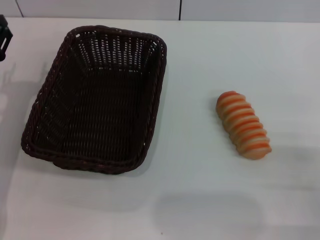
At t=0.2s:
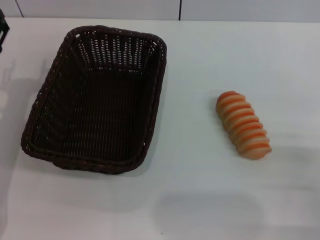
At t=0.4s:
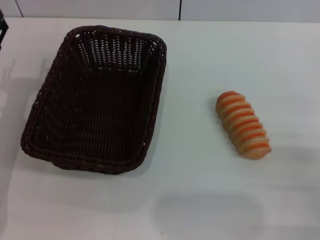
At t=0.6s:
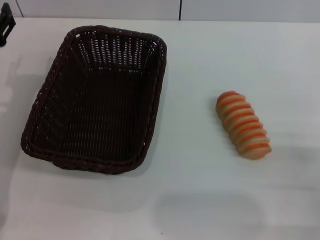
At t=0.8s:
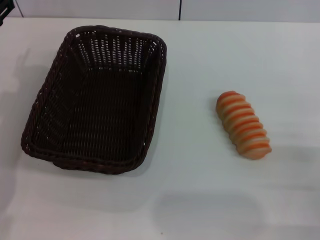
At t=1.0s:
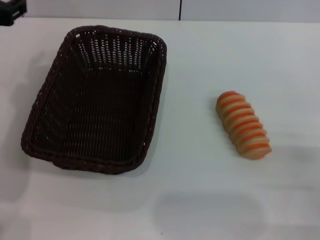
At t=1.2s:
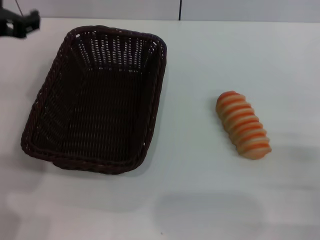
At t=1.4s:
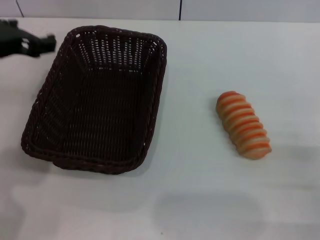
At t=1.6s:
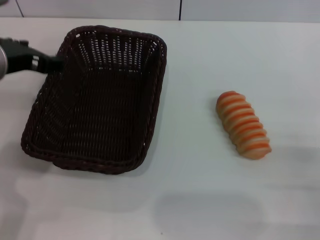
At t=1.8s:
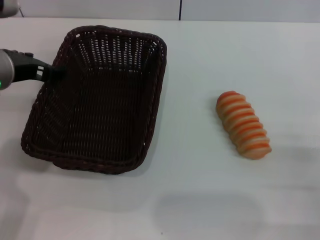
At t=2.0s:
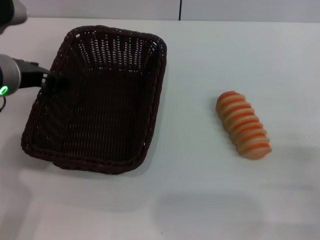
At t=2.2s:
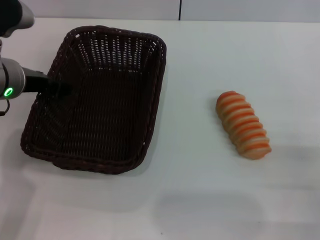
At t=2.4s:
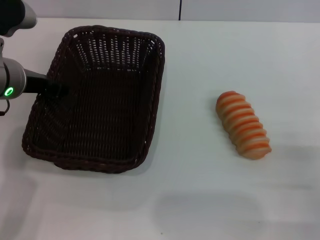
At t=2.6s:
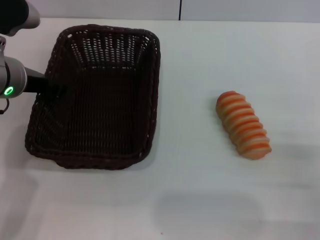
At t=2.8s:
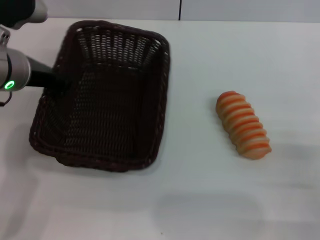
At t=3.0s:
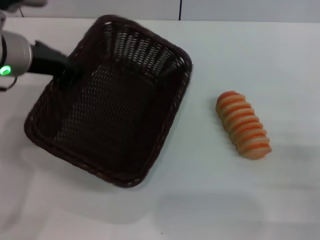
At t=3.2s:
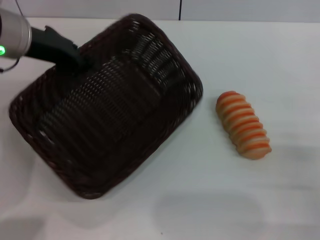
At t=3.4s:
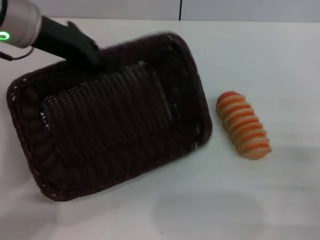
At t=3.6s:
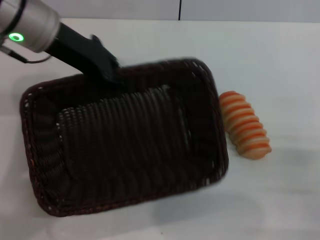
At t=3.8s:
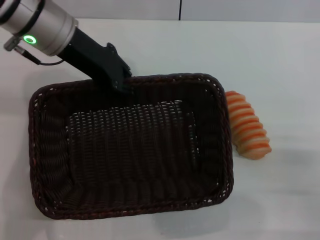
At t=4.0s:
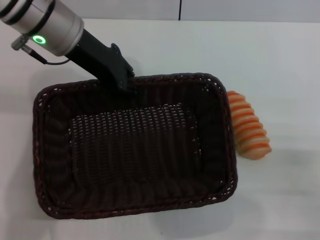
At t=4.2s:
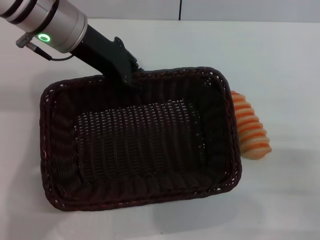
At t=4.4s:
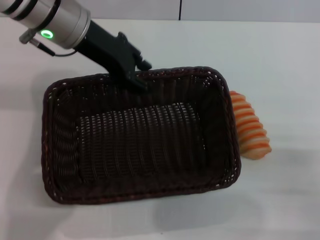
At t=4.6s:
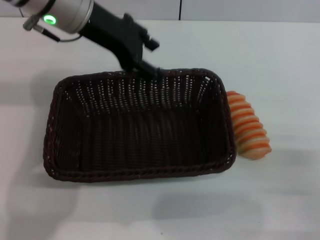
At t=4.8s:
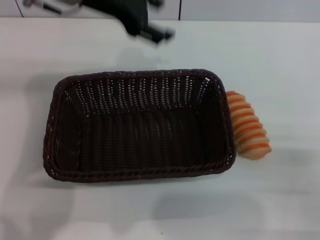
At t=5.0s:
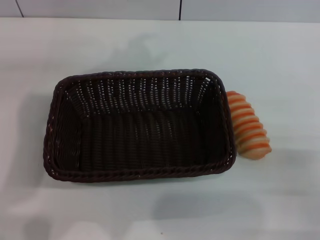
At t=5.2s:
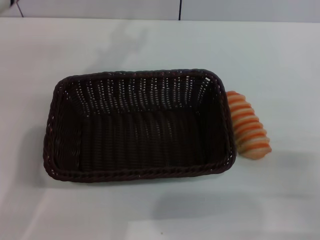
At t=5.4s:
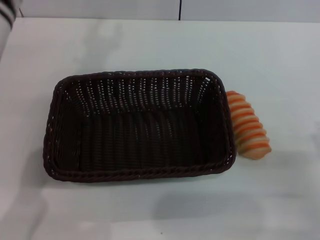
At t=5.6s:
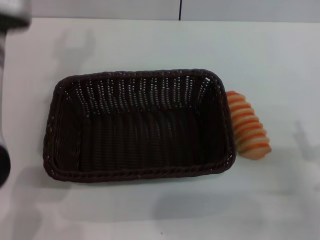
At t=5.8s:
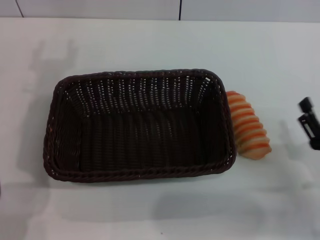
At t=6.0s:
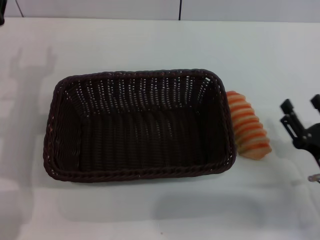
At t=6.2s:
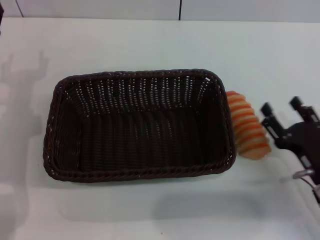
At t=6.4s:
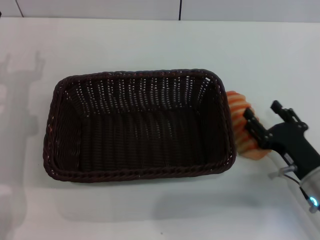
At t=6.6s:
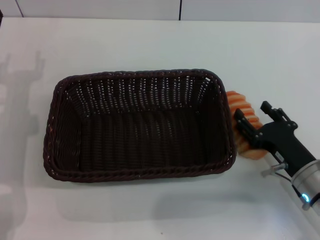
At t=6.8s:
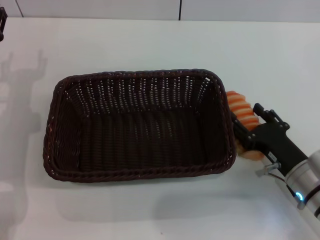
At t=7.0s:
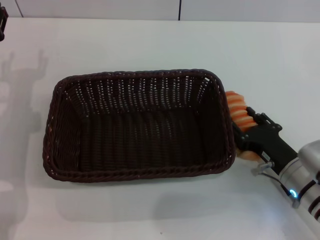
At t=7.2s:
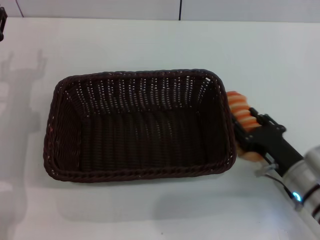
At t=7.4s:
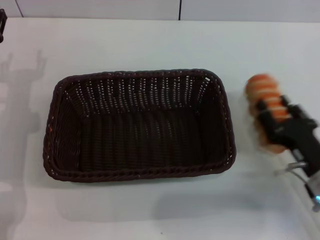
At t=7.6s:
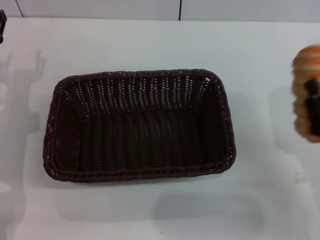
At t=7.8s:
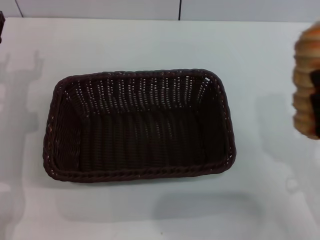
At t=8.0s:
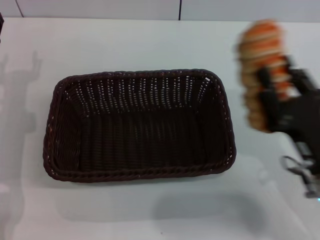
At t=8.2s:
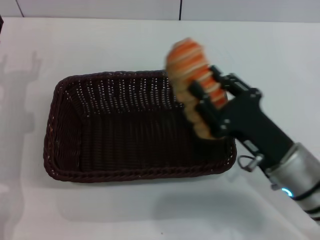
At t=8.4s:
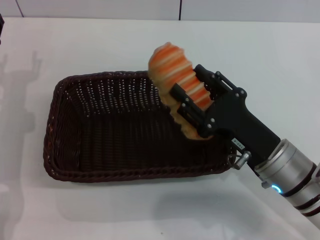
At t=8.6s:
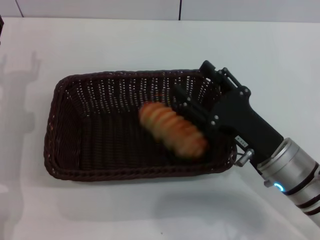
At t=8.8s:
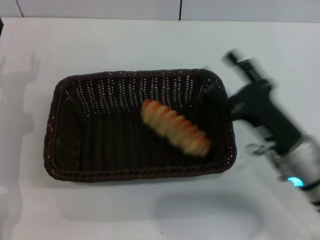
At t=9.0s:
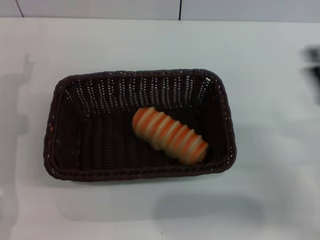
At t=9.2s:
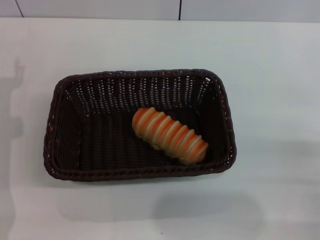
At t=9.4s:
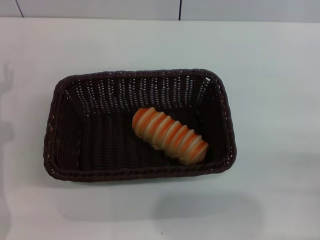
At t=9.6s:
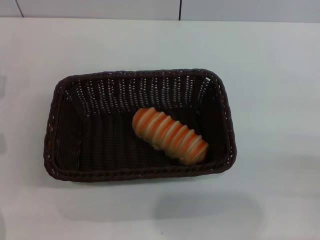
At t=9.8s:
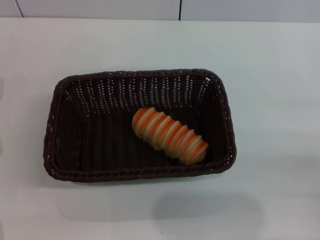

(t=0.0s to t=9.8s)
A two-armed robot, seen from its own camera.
Step, t=0.0s - t=3.0s: Pick up the dark basket with the left gripper.
Step, t=3.2s - t=4.4s: Place the dark basket in the center of view with the left gripper.
Step, t=4.6s - t=7.2s: Pick up the long bread with the right gripper.
Step, t=7.4s - t=8.4s: Place the long bread into the dark basket with the right gripper.
t=0.0s - t=1.4s: The left gripper travels upward and to the right by roughly 15 cm.
t=1.4s - t=2.8s: The left gripper moves some 5 cm, and closes its fingers.
t=2.8s - t=4.2s: The left gripper goes roughly 10 cm forward and to the right, and closes its fingers.
t=4.2s - t=5.6s: The left gripper shifts some 5 cm backward, and opens up.
t=5.6s - t=7.0s: The right gripper heads to the left and forward, covering approximately 10 cm. Meanwhile the left gripper travels downward and to the left by approximately 10 cm.
t=7.0s - t=8.4s: The right gripper travels upward and to the left by roughly 10 cm, and closes.
t=8.4s - t=9.8s: The right gripper heads to the right and backward, covering some 20 cm, and opens its fingers. The left gripper ends up roughly 5 cm from where it was.

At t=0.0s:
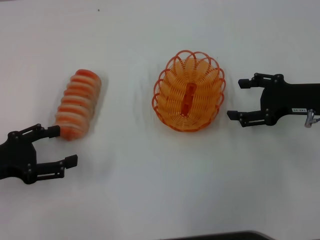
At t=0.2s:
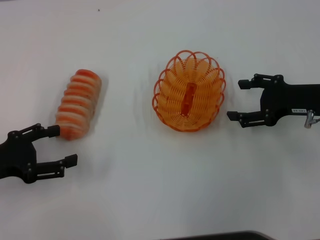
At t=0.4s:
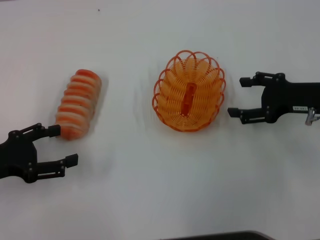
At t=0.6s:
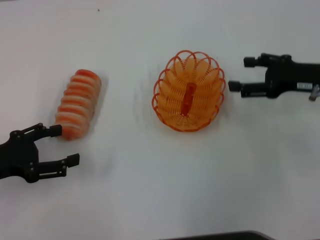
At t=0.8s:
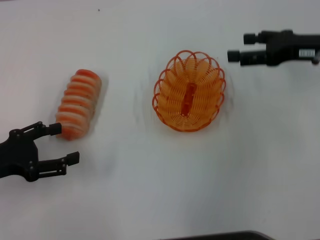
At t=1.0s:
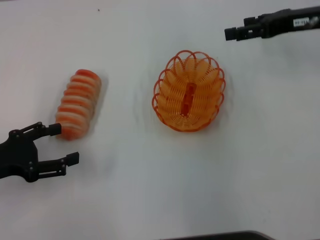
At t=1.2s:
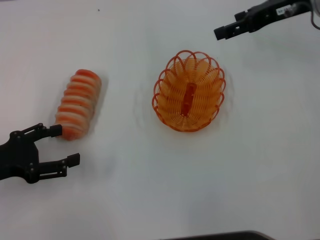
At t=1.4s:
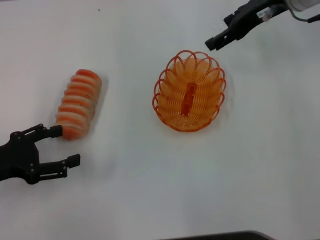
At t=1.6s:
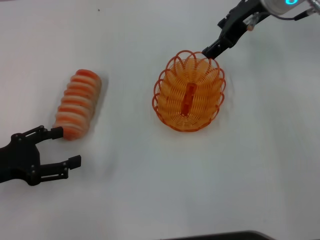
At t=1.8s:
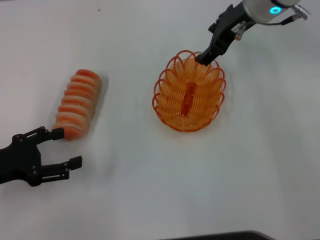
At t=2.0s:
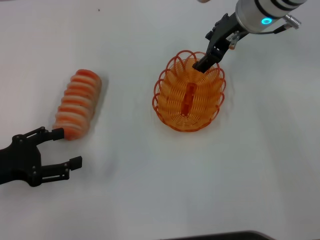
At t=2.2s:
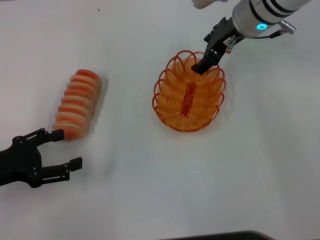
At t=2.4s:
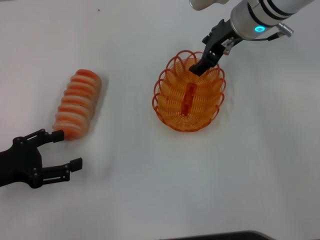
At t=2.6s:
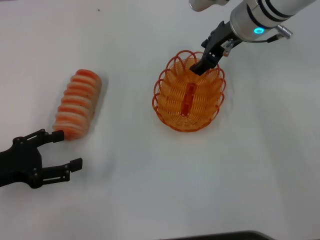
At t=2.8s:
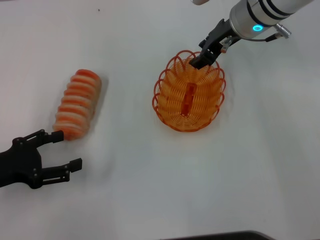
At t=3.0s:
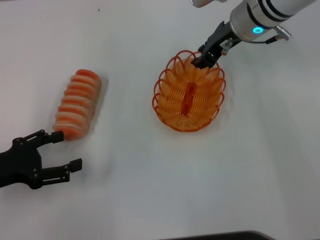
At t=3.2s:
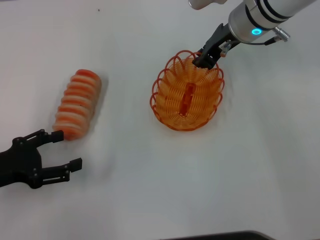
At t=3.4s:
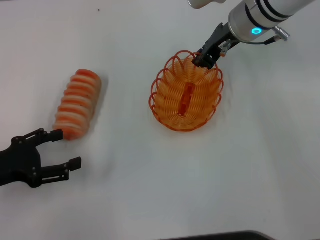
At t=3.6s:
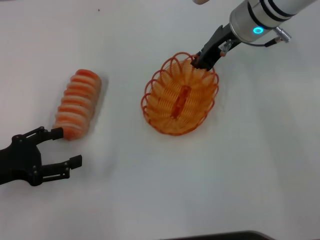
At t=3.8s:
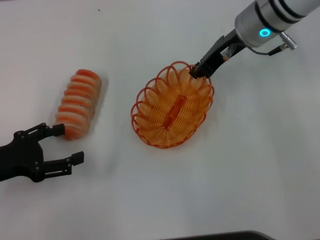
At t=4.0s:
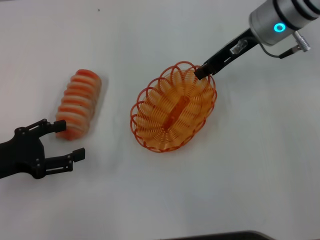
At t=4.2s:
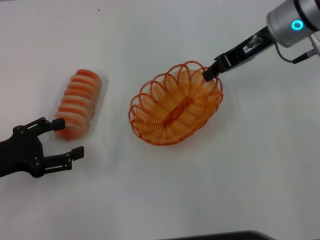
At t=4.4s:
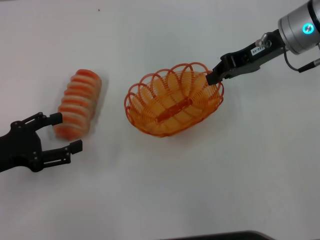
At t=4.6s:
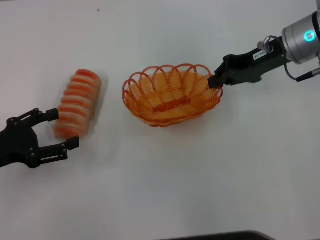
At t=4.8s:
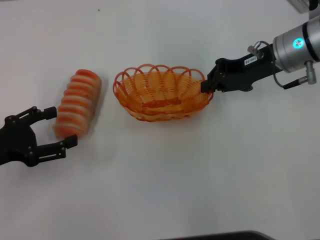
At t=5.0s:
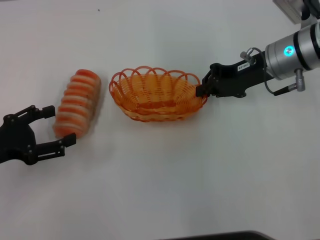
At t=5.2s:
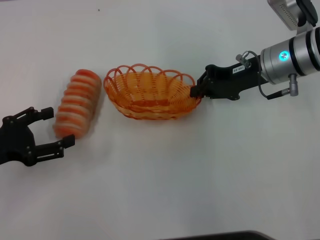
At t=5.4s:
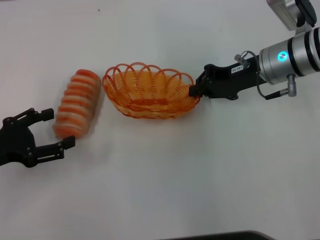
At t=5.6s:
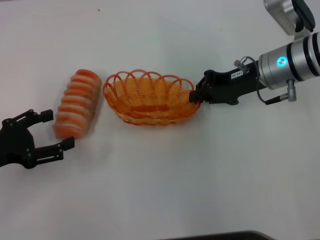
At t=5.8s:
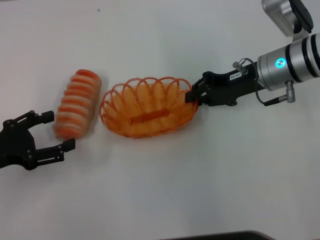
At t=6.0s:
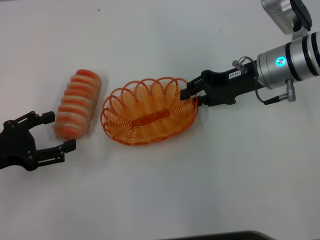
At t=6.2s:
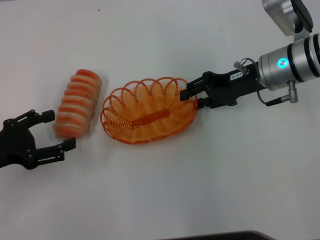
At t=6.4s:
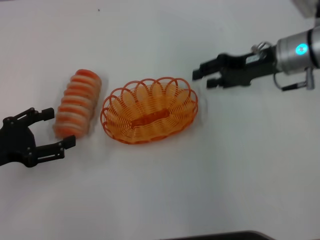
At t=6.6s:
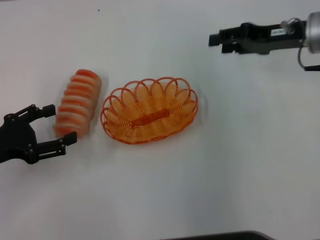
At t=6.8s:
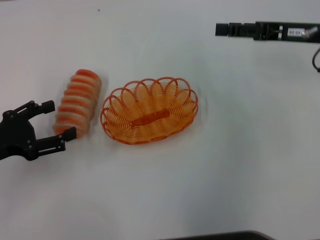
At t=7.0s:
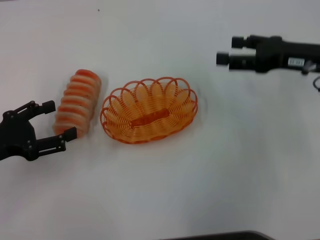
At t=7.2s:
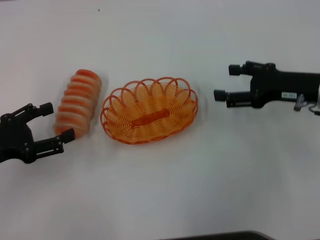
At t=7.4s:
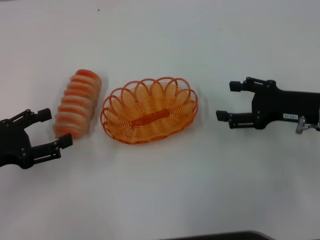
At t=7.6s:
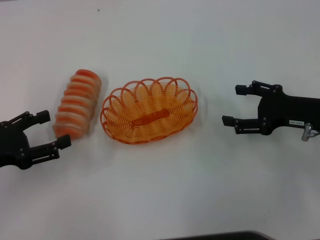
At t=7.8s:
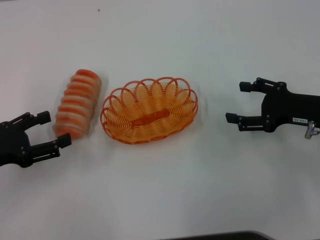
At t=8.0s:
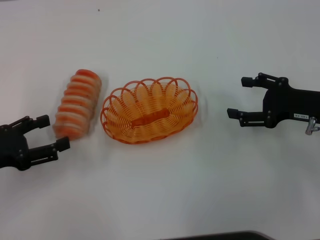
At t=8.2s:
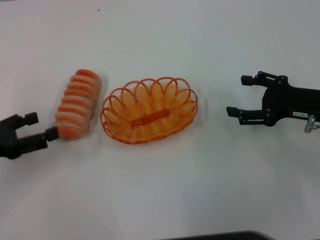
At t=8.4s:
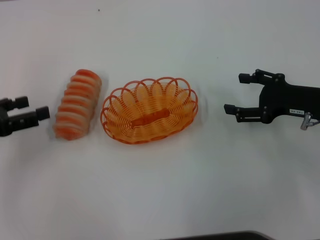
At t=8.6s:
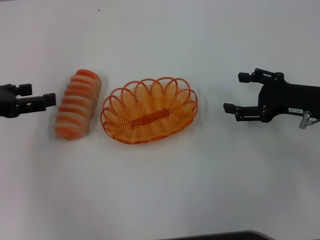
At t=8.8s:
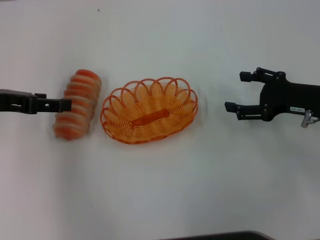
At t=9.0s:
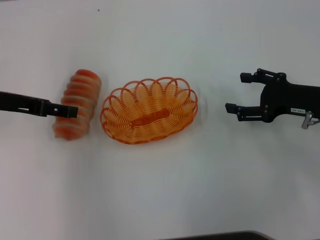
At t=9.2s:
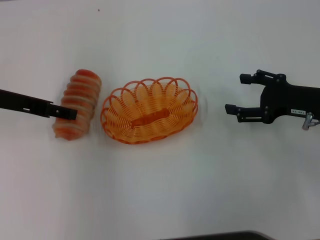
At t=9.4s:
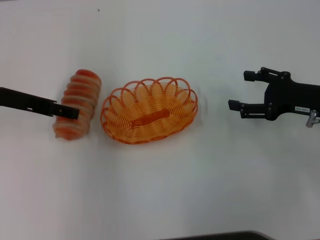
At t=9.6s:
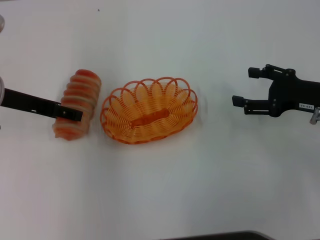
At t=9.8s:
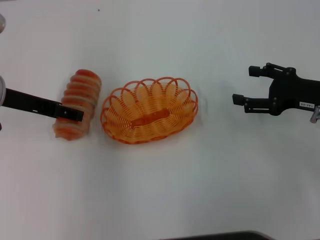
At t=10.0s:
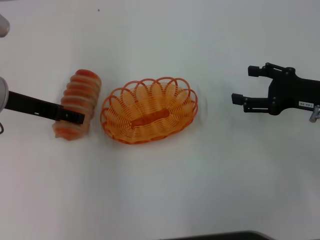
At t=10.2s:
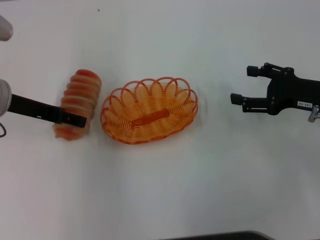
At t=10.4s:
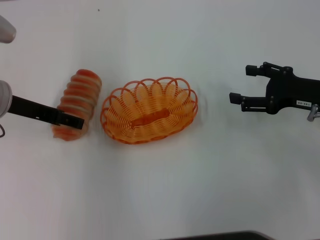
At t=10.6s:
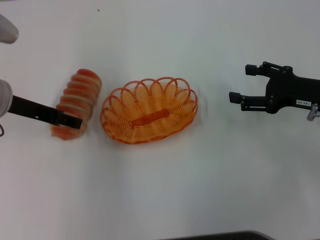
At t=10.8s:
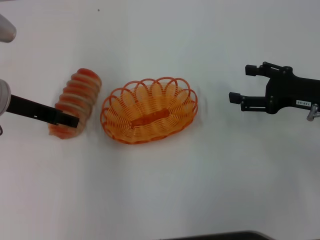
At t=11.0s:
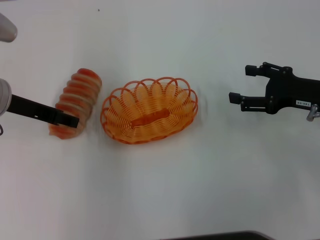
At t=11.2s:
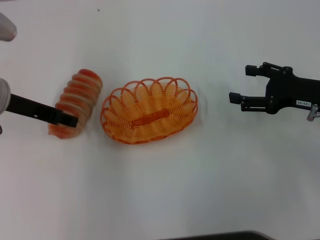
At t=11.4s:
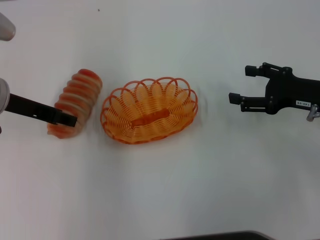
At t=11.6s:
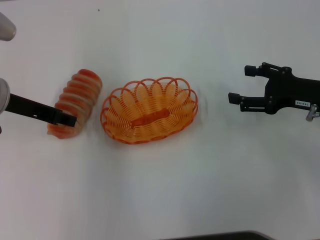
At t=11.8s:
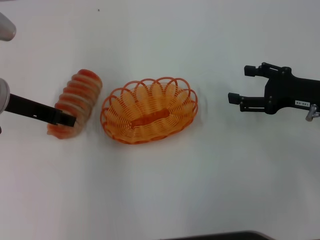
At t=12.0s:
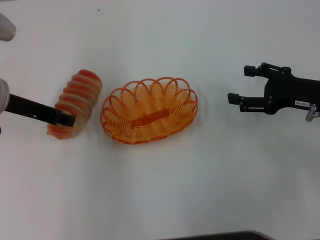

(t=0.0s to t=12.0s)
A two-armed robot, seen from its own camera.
Step, t=0.0s - t=3.8s: Pick up the basket with the right gripper.
Step, t=4.0s - t=6.2s: Place the basket in the center of view with the right gripper.
t=0.0s - t=1.6s: The right gripper moves forward, upward and to the left, some 20 cm.
t=1.6s - t=3.0s: The right gripper moves approximately 5 cm, and closes its fingers.
t=3.0s - t=4.4s: The right gripper goes roughly 5 cm to the right, and closes up.
t=4.4s - t=6.0s: The right gripper is displaced downward by some 5 cm.
t=6.0s - t=7.6s: The right gripper goes approximately 15 cm backward and to the right, and opens up.
t=7.6s - t=9.0s: The left gripper goes roughly 15 cm forward, upward and to the right.
t=9.0s - t=10.4s: There are only small adjustments of the grippers.
t=10.4s - t=12.0s: The left gripper closes up.
